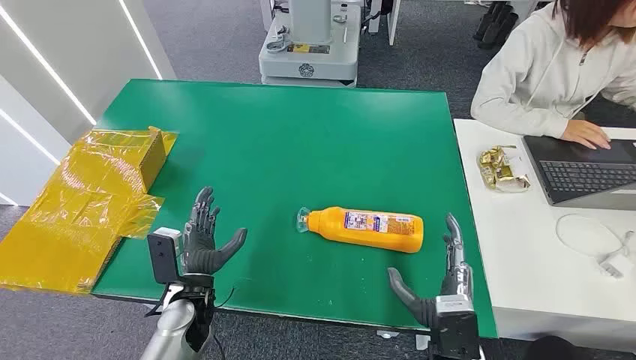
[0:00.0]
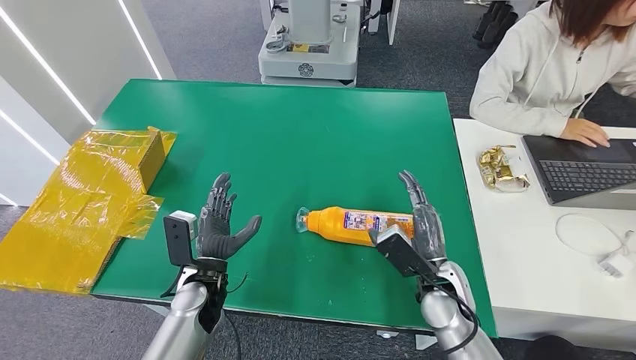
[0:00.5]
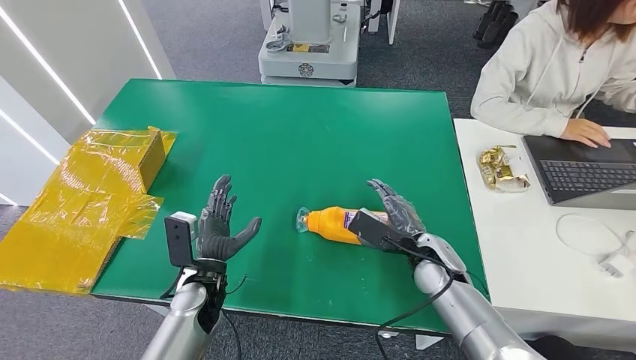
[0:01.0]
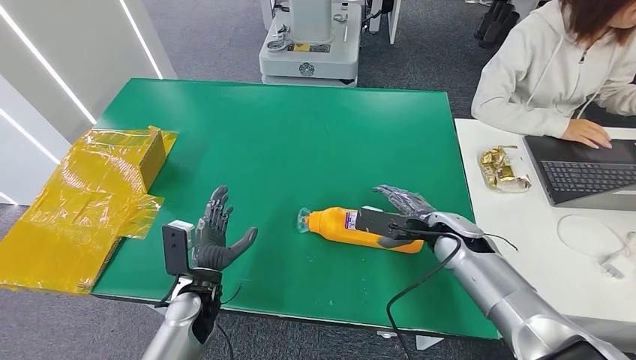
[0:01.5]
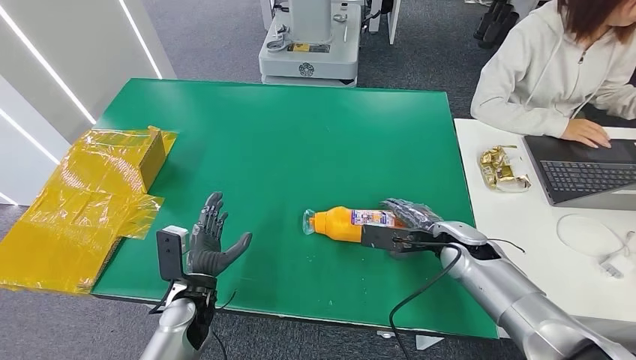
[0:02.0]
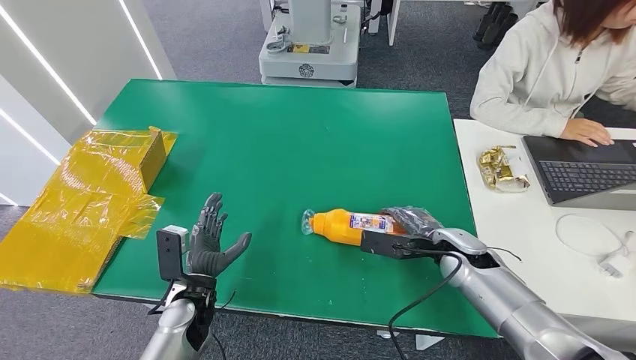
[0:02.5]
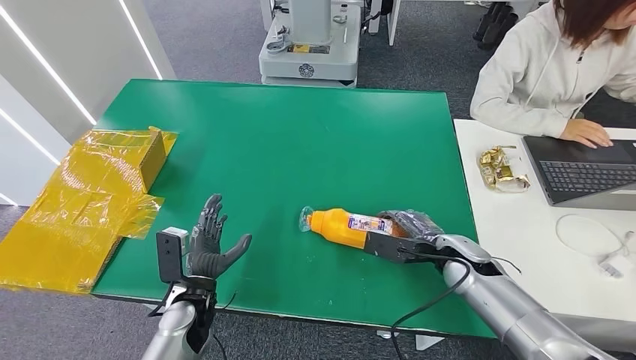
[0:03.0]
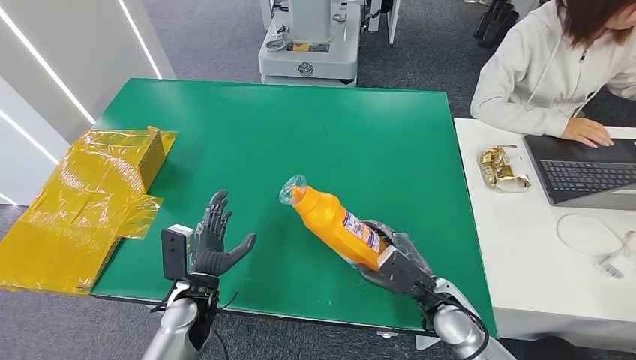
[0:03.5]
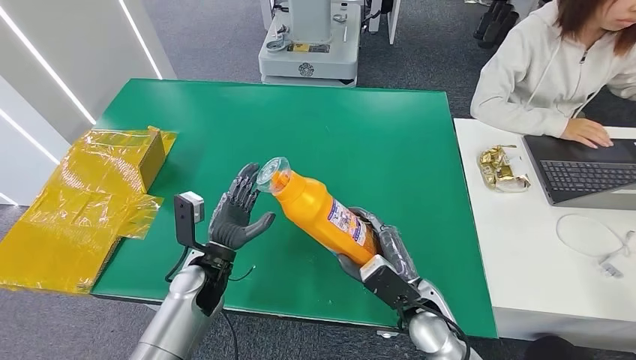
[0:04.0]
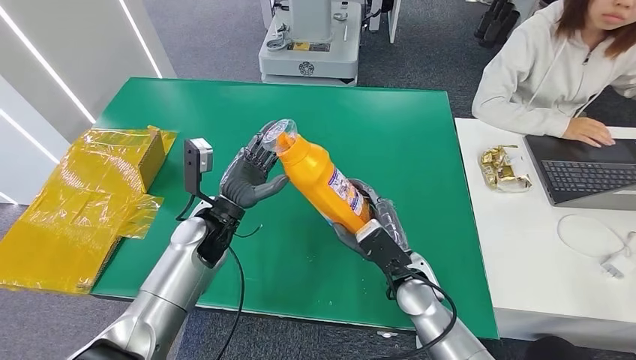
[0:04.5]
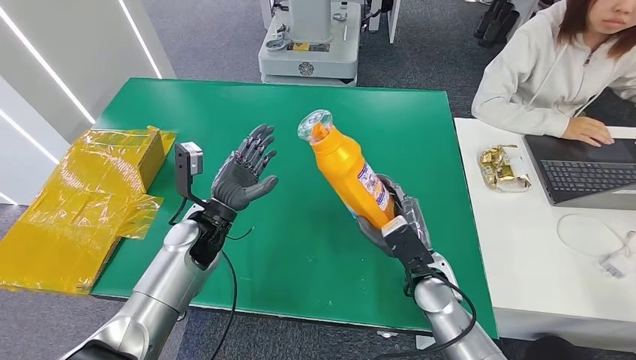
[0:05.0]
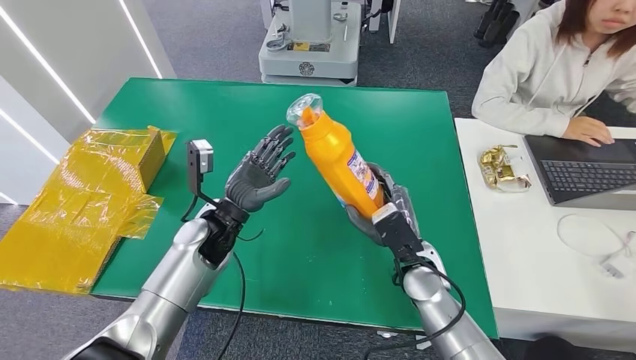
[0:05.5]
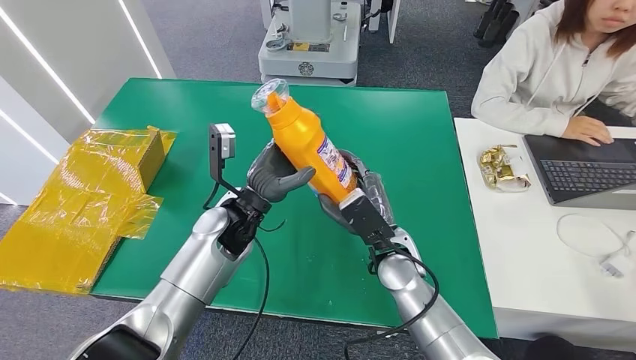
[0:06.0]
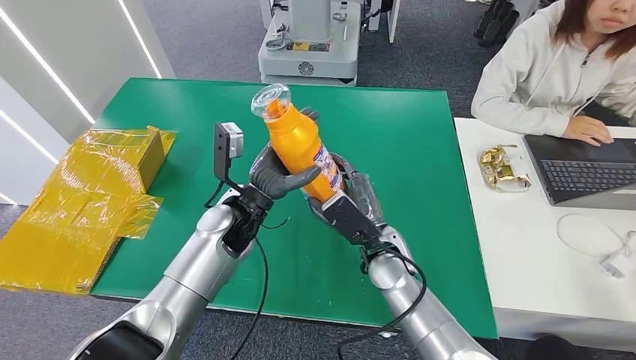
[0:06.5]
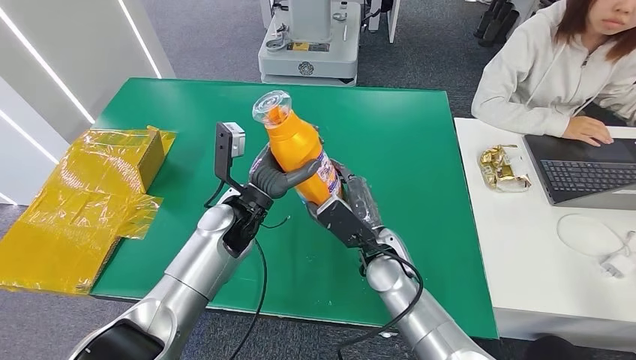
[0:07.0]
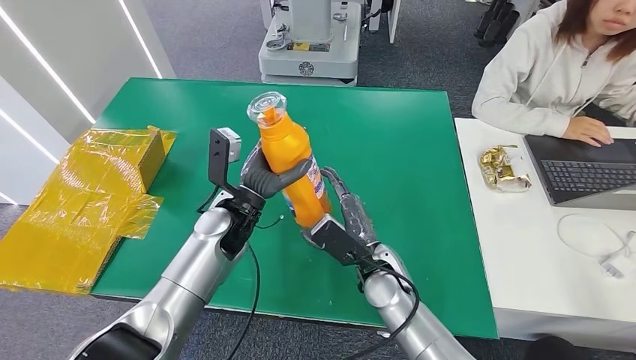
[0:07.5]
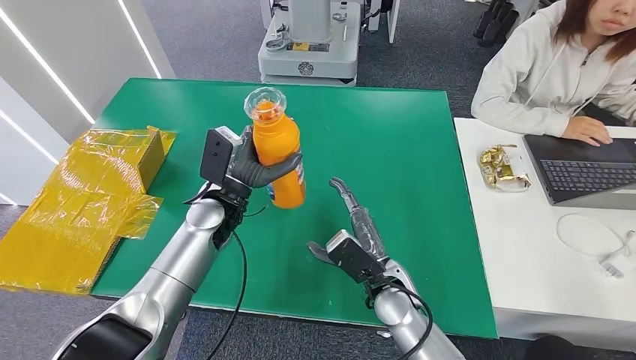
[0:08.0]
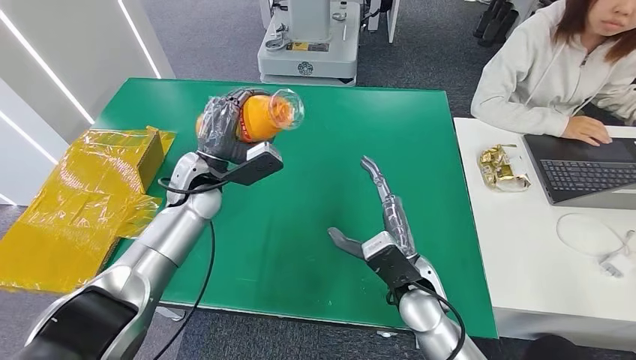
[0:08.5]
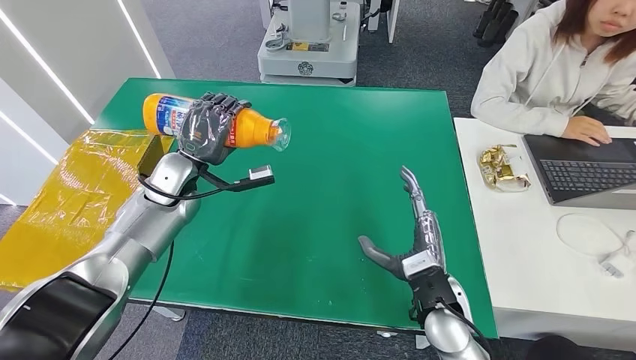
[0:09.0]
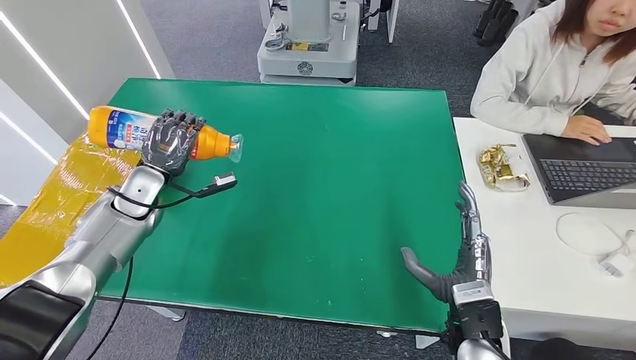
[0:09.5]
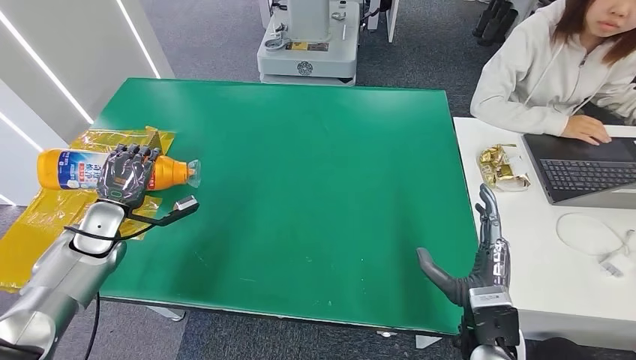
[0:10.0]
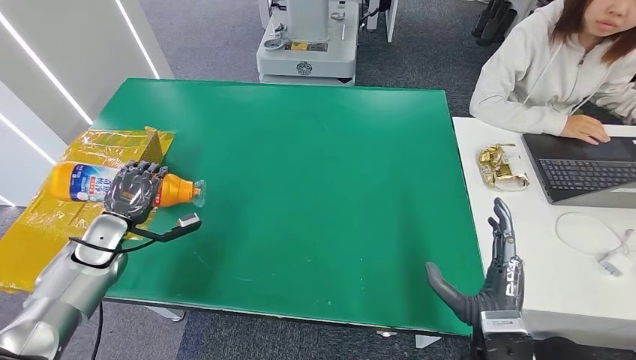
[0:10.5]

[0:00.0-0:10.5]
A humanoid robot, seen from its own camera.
Step, 0:00.0 to 0:03.5: Pick up the bottle from the table.
0:02.0 to 0:04.0: The right hand goes approximately 15 cm backward, to the left and downward; the left hand ends up some 5 cm from where it was.
0:04.0 to 0:06.5: The left hand travels upward, forward and to the right by about 15 cm; the right hand travels to the left and forward by some 10 cm.
0:06.5 to 0:08.5: The right hand ends up approximately 5 cm from where it was. Meanwhile the left hand shifts about 10 cm to the left.

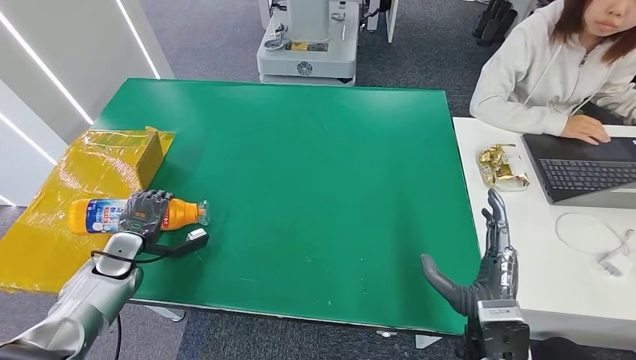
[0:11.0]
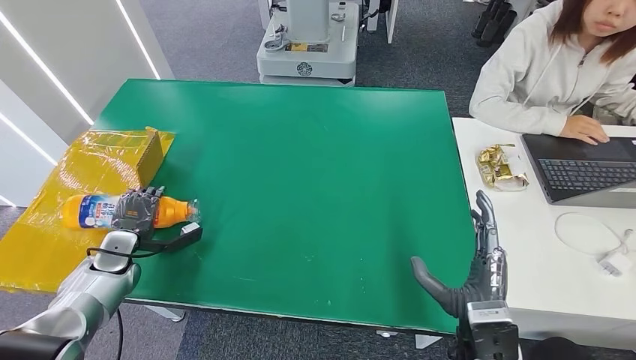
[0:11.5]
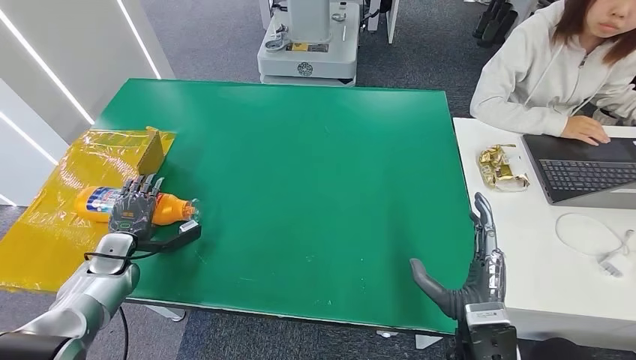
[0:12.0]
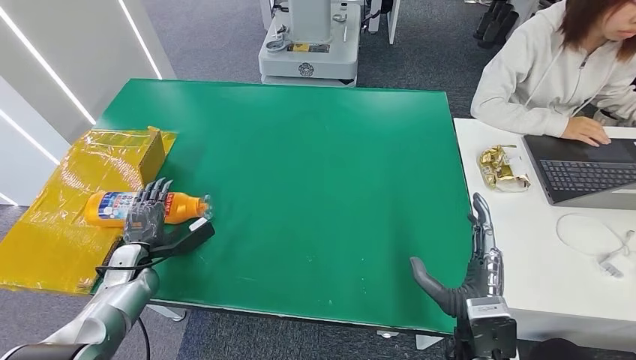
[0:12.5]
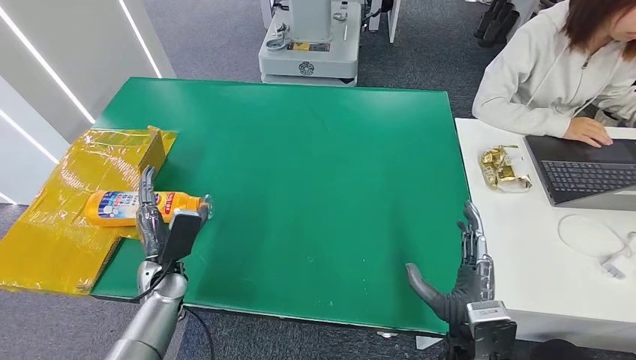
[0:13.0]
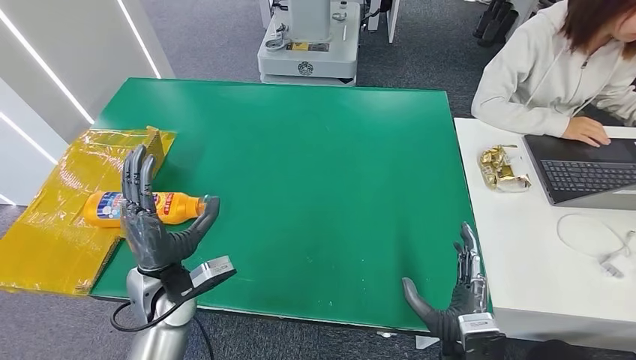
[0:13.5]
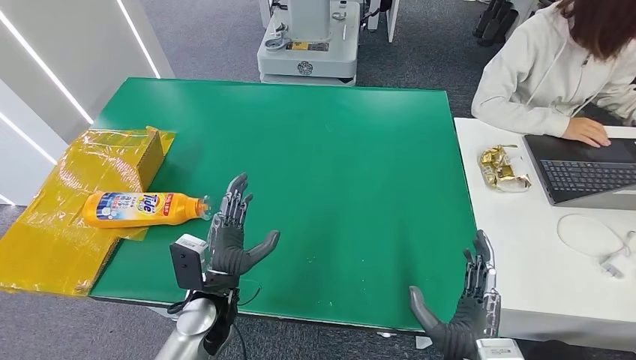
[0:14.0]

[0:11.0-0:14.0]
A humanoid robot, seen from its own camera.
Step, 0:11.0 to 0:14.0: Turn the bottle to the front side.
0:12.5 to 0:14.0: The left hand heads to the right, covering approximately 25 cm. The right hand is displaced backward by about 5 cm.
